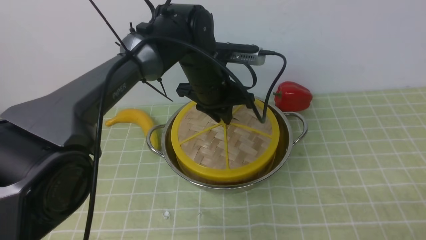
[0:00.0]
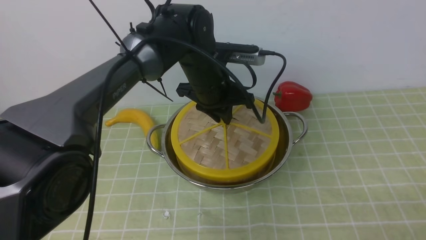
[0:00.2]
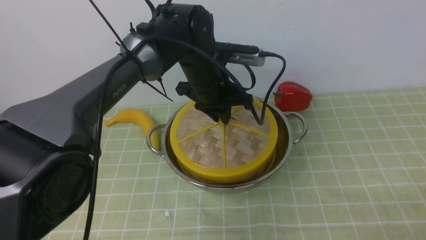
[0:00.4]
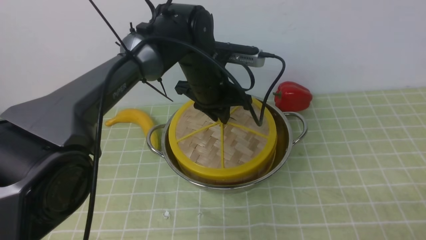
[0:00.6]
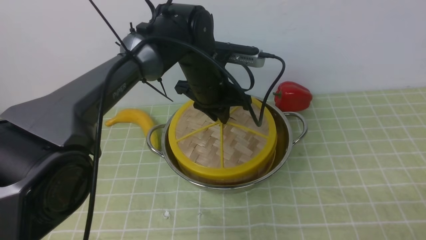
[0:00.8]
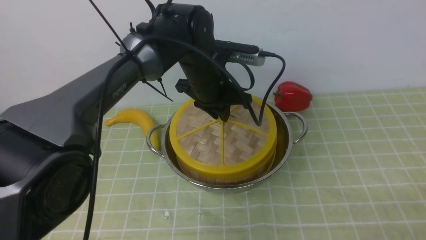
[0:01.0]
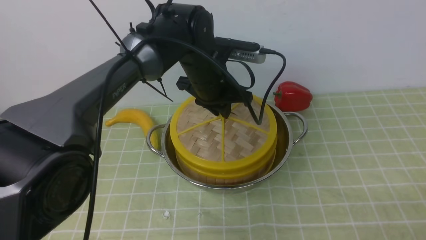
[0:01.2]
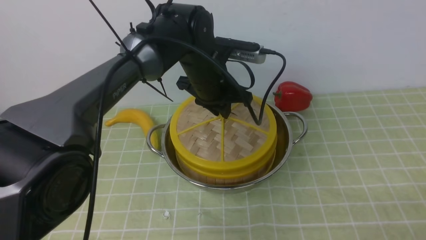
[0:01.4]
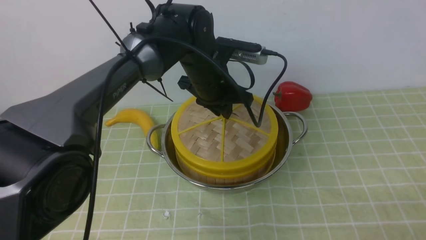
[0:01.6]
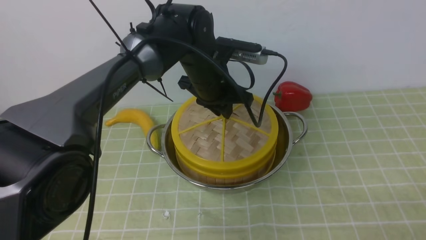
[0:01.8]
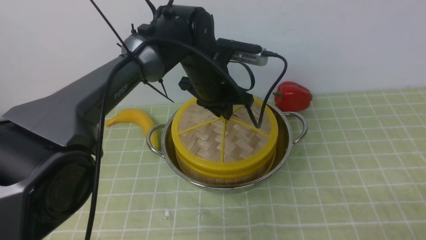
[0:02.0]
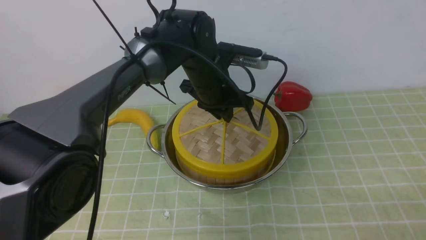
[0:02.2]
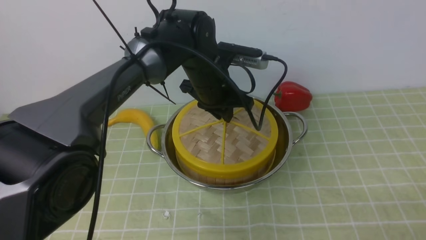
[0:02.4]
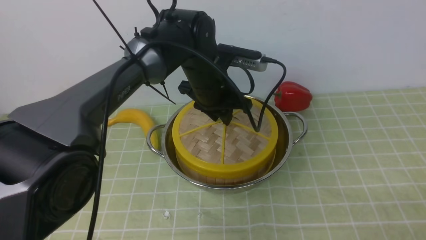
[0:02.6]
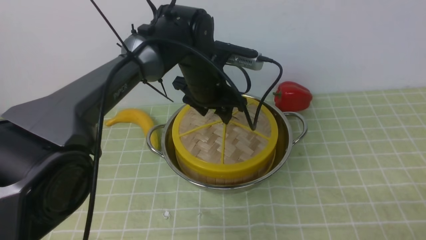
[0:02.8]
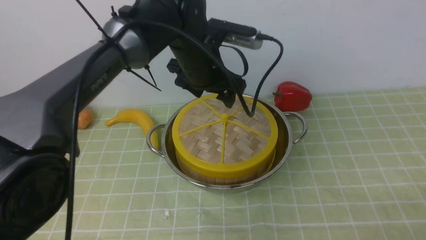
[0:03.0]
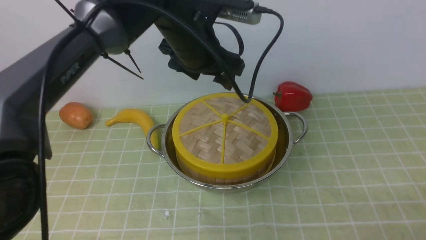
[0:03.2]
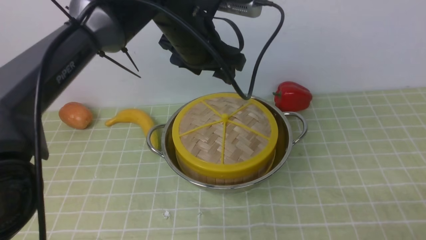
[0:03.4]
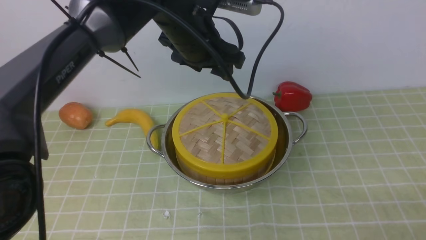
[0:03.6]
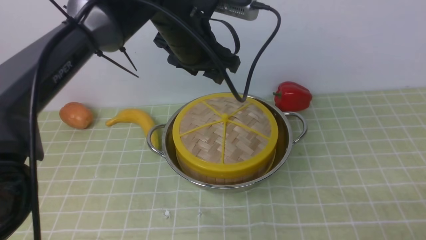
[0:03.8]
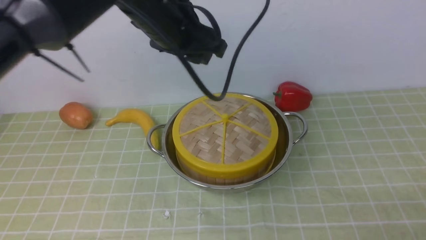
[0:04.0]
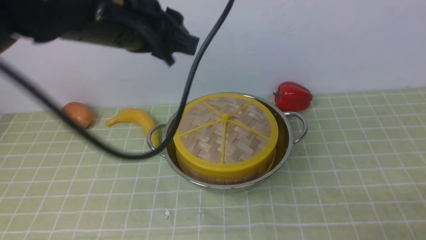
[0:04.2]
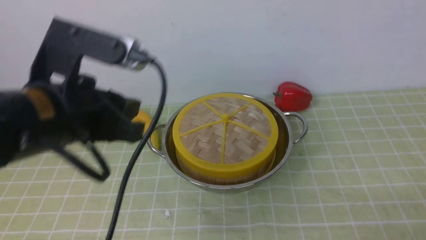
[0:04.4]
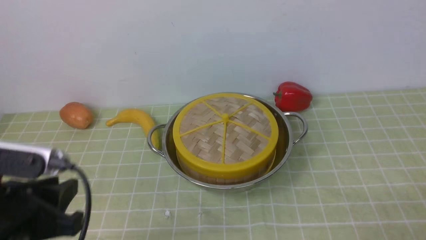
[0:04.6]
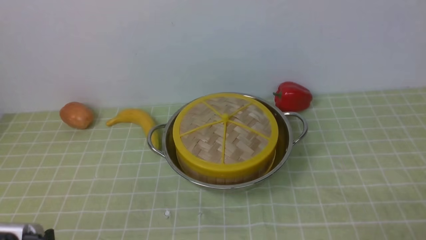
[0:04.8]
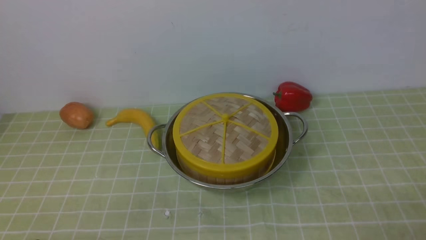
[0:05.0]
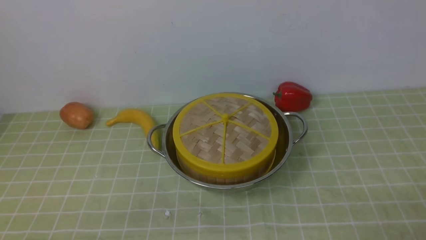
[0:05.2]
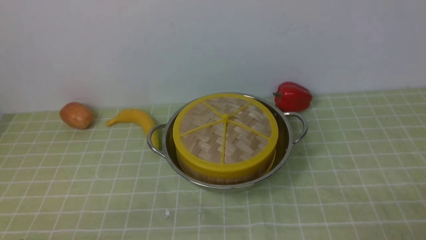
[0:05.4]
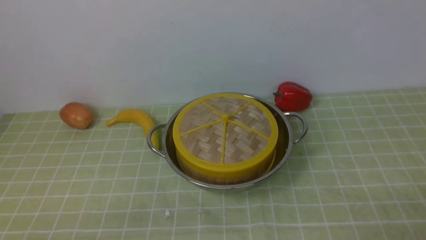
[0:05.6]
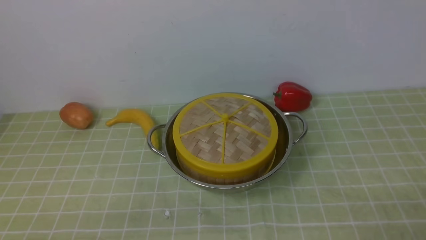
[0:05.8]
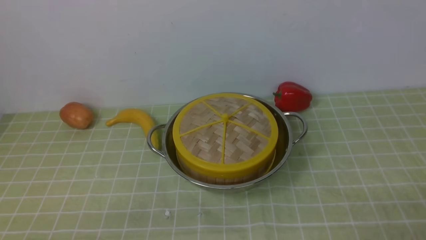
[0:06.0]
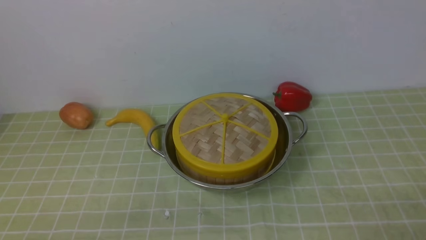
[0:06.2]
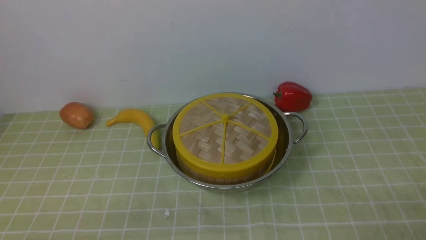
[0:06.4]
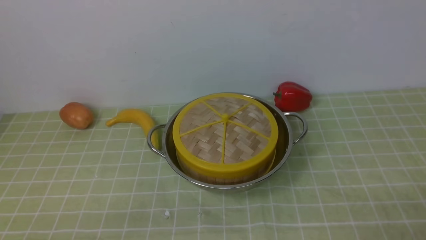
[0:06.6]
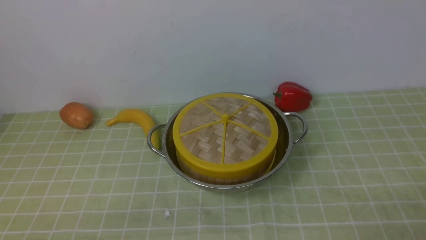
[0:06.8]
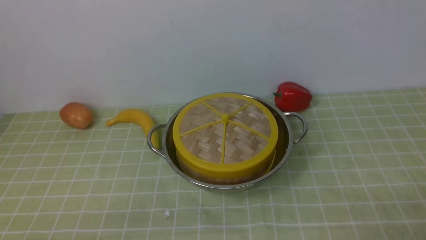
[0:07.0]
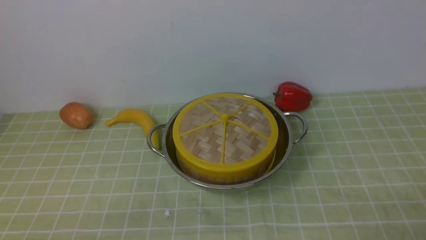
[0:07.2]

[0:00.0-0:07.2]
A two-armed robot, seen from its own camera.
Task of the whole recording: place the steamer in the pot on the green tablecloth, and put the lid on the steamer.
Step, 0.0 to 3.0 s: use the left arm to place the steamer lid on the steamer.
0.0 to 1.4 s: The grippers stay close to where they were, moving slightly.
1.4 to 2.8 s: The left gripper opens its fingers.
2.8 to 4.4 s: The left gripper moves backward and to the left, about 25 cm, and closes up.
4.4 to 5.8 s: The left gripper heads backward, downward and to the left, covering approximately 25 cm.
5.8 to 7.2 s: Both grippers stay about where they are.

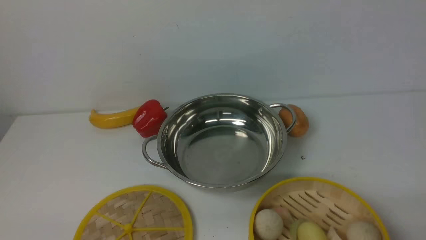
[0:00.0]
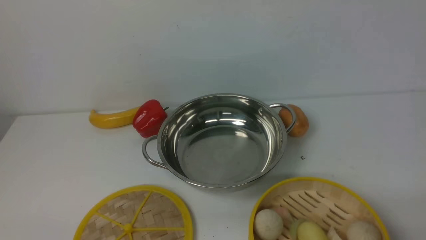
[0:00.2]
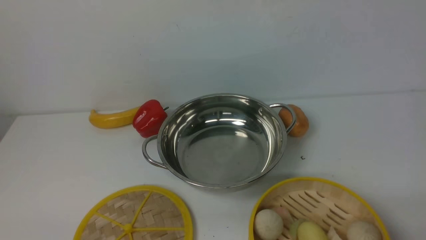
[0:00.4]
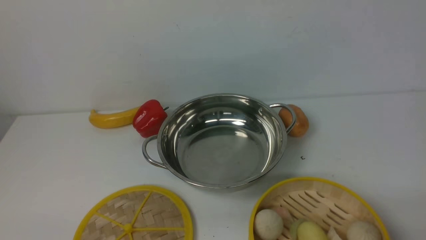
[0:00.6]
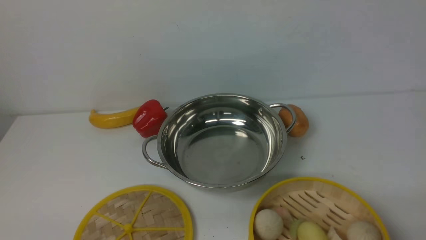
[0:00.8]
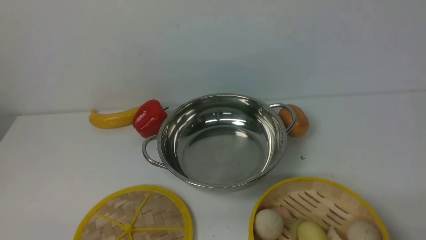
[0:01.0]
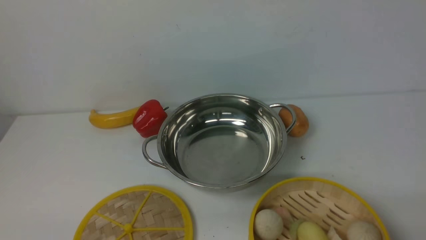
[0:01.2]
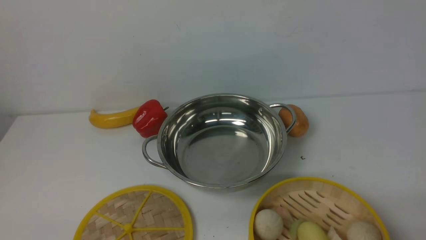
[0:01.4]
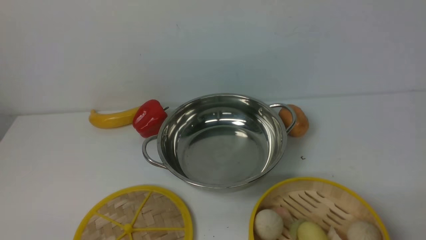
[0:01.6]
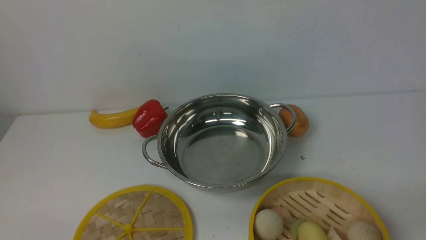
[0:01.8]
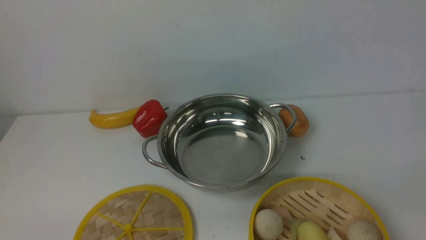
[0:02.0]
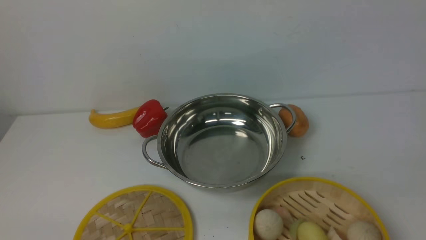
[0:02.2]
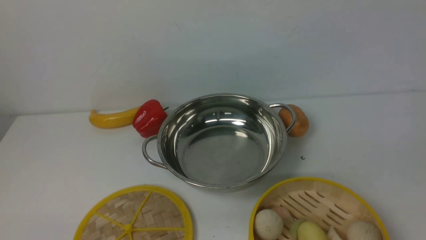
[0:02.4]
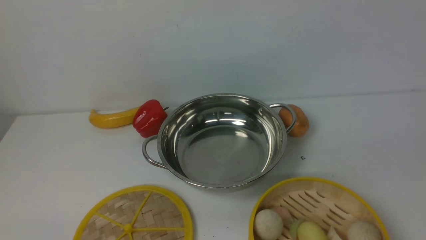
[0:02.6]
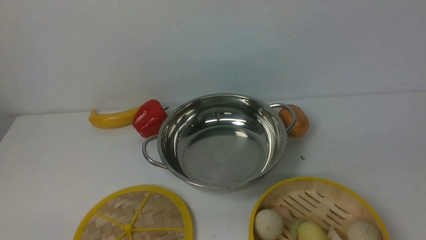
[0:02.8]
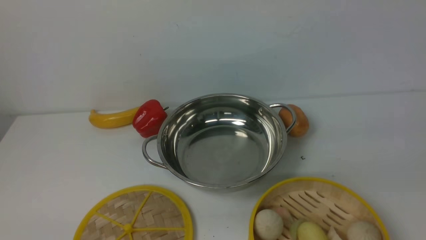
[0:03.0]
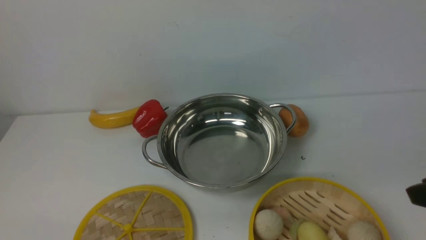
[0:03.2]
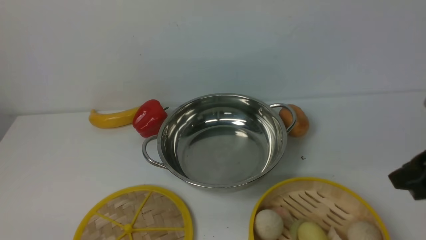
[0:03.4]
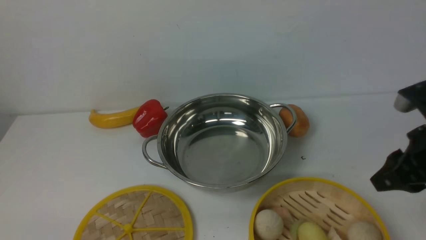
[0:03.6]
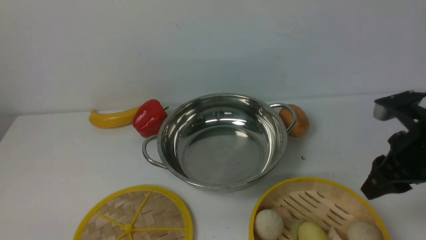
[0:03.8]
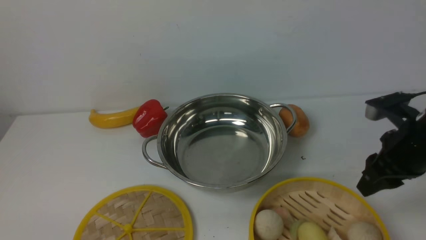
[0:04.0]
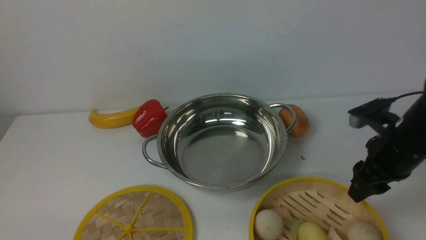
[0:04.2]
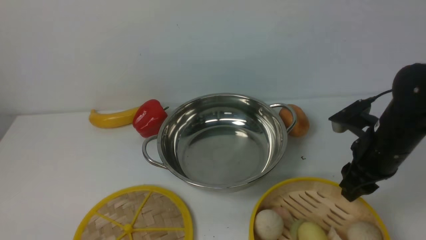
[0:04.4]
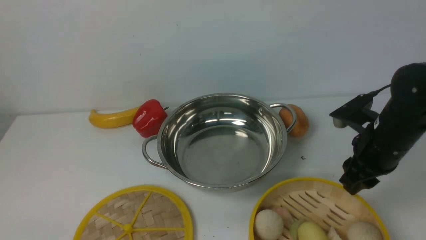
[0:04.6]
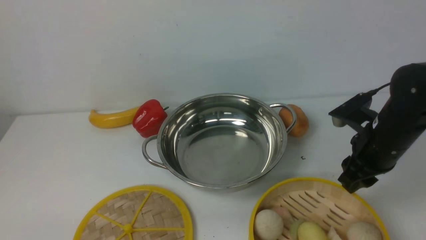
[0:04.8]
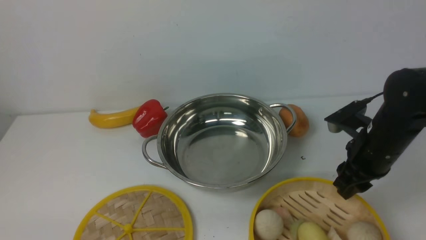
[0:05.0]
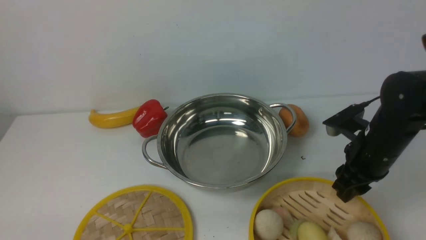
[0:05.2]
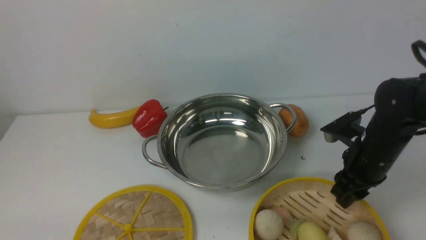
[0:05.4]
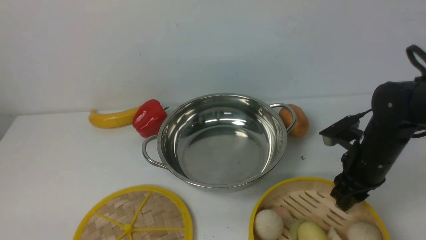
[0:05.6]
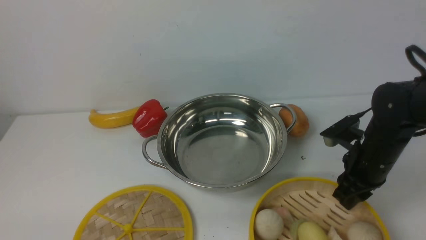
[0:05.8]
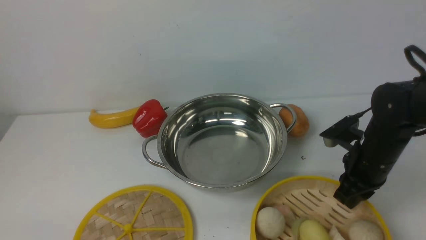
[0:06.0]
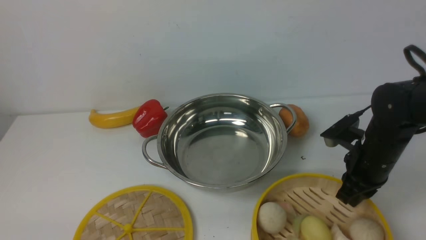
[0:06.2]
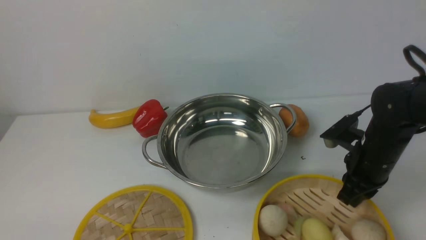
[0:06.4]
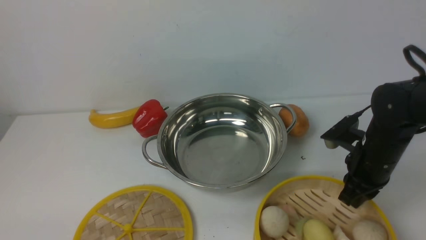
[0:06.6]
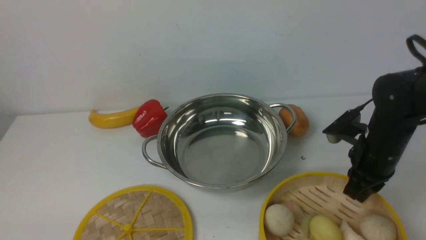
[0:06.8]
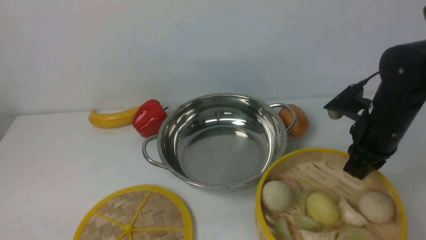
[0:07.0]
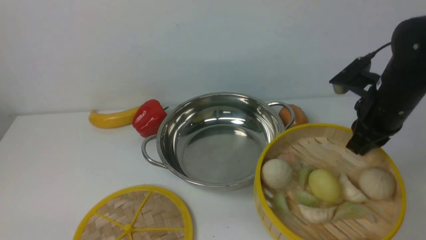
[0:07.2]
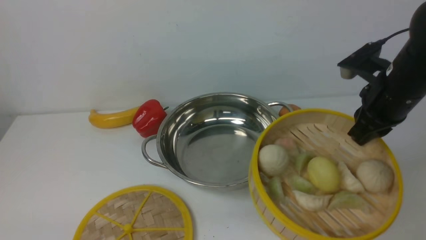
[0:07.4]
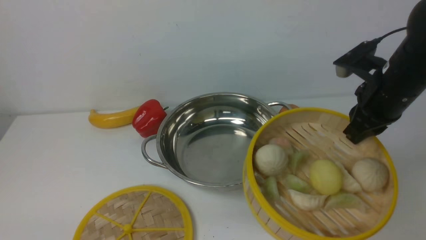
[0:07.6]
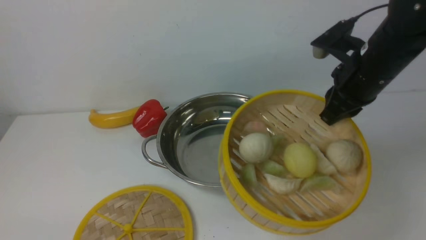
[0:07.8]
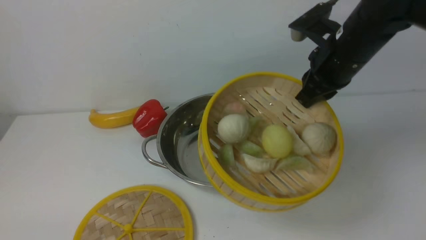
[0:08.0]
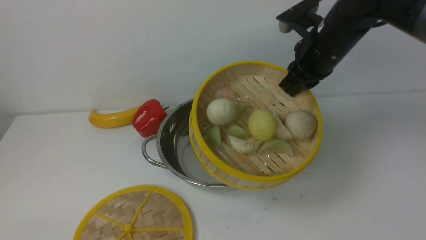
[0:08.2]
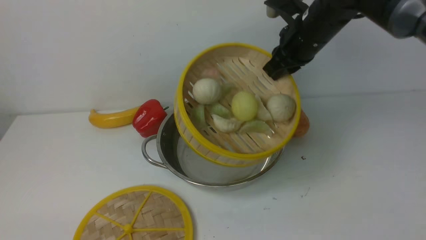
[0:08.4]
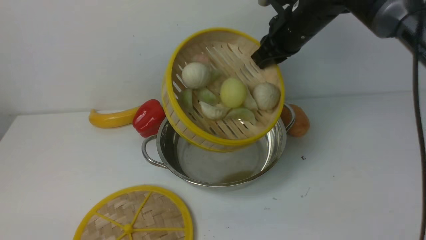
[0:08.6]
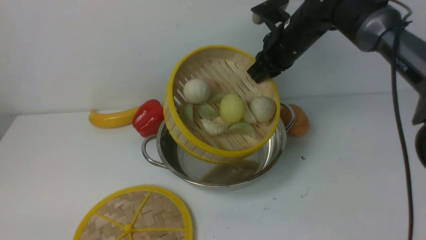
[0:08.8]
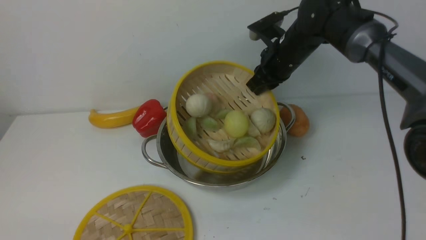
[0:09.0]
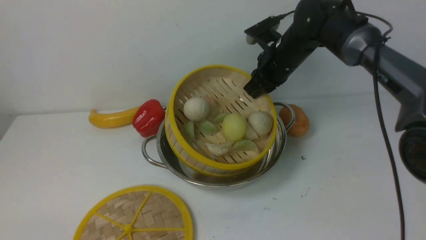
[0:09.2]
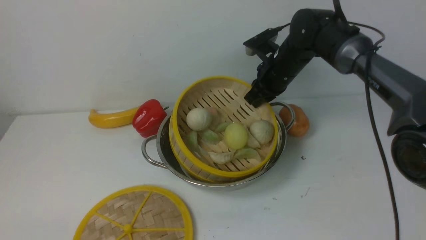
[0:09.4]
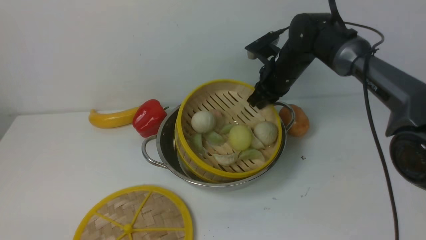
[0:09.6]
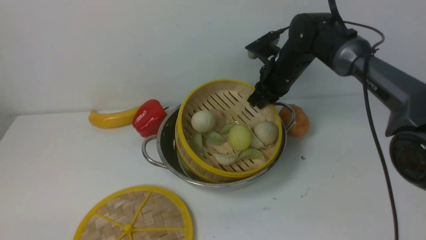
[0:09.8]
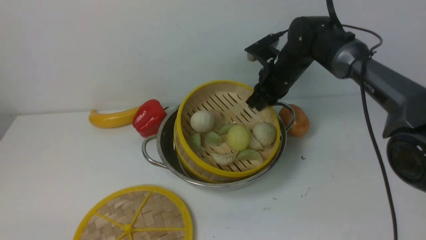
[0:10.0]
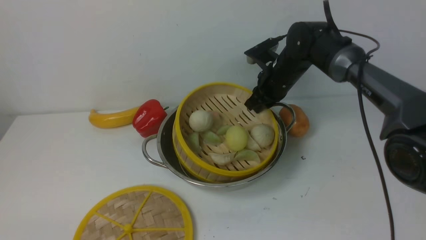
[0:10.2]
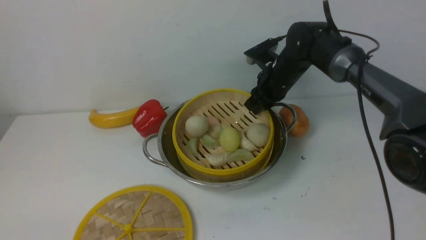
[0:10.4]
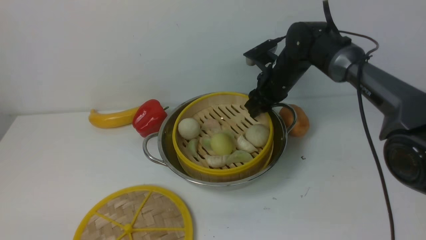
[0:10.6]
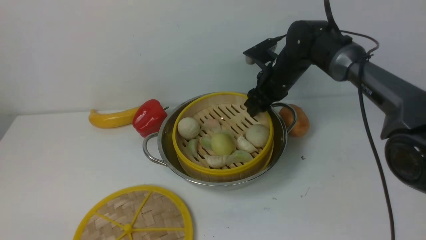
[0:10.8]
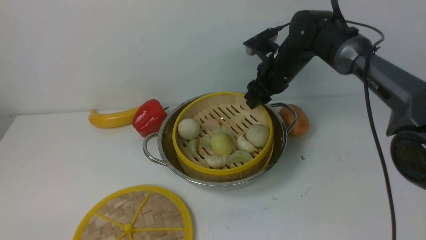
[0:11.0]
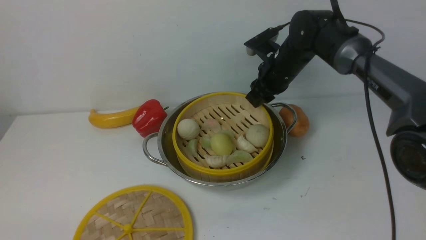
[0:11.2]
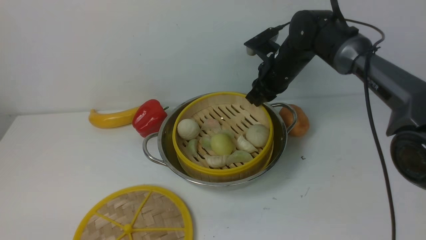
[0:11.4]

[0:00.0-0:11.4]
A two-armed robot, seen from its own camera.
Task of the whole recording: place the steamer in the pot on the white table, and put the lid on the steamer.
Step, 0.0 to 7.2 s: use the right arm to lift the steamer closest to it.
Step, 7.4 to 11.2 s: use the right arm to put the steamer into the iron steamer pot in the middle.
0.0 to 1.4 s: Both grippers stay put.
2.8 to 4.2 s: The right gripper moves forward and downward, roughly 20 cm.
4.2 to 5.6 s: The right gripper travels downward by approximately 5 cm.
5.6 to 7.2 s: The right gripper shifts some 10 cm upward, and closes its fingers.
7.2 to 8.6 s: The right gripper is displaced forward and to the left by roughly 15 cm.
8.6 to 10.0 s: The right gripper moves downward, some 10 cm.
10.0 to 11.4 s: The right gripper opens, then closes again.
